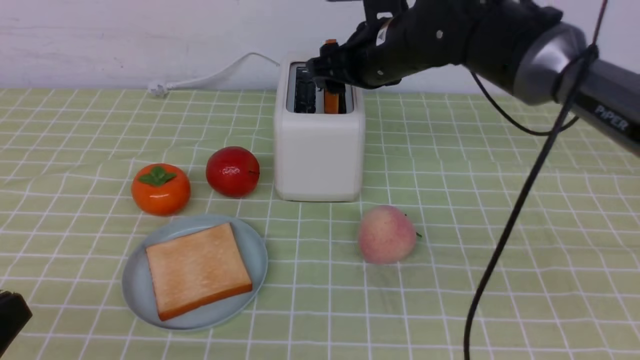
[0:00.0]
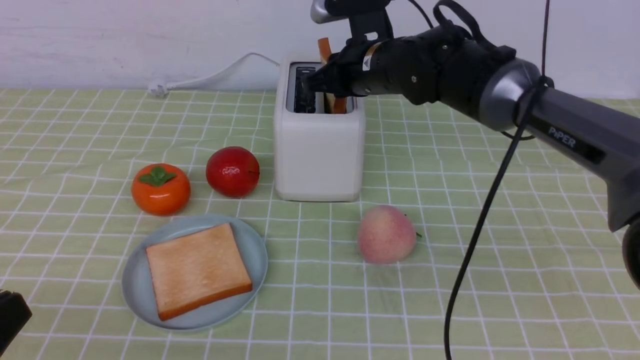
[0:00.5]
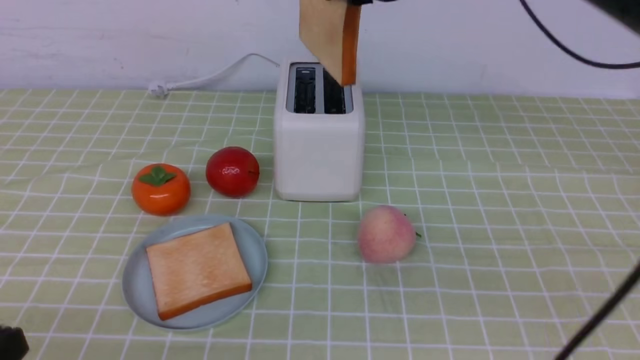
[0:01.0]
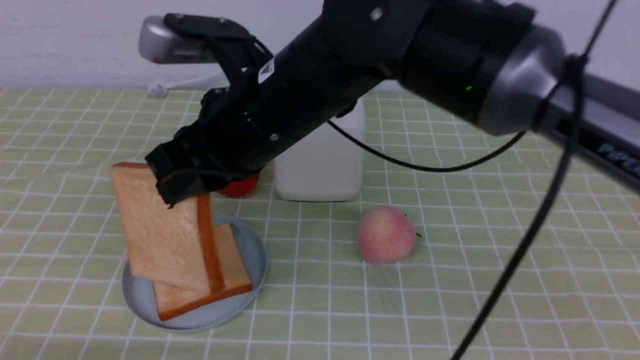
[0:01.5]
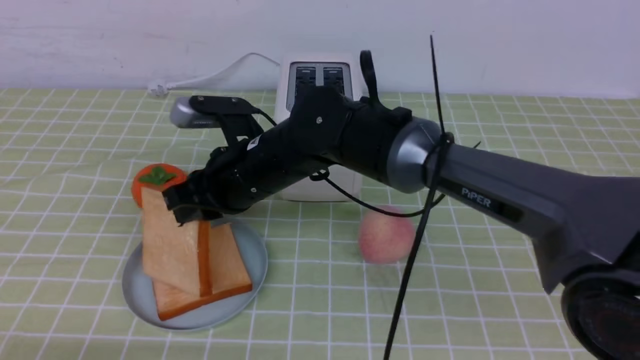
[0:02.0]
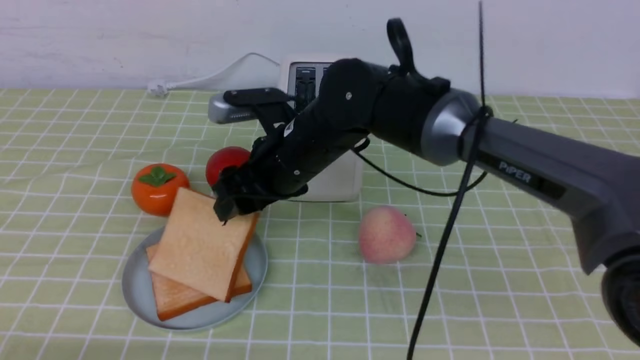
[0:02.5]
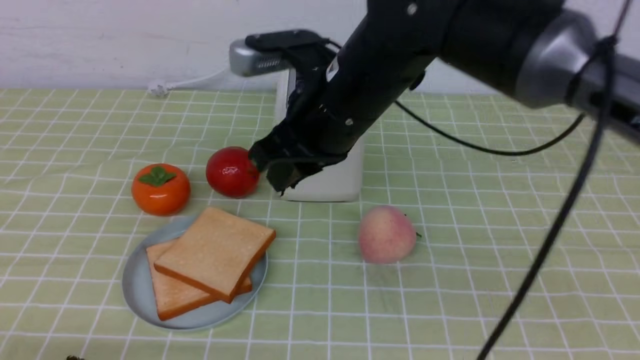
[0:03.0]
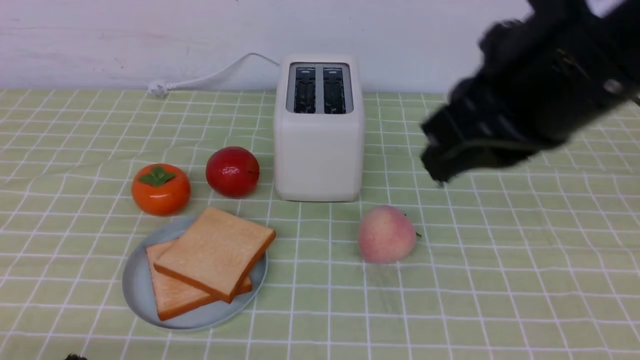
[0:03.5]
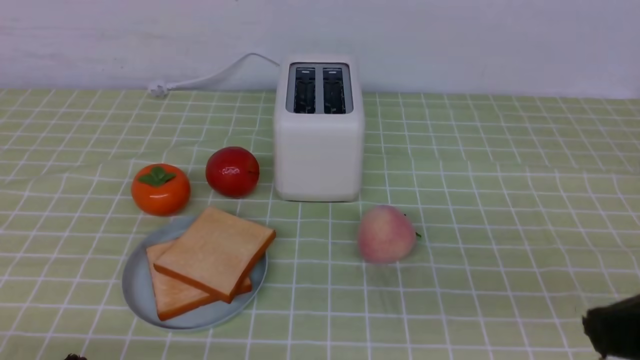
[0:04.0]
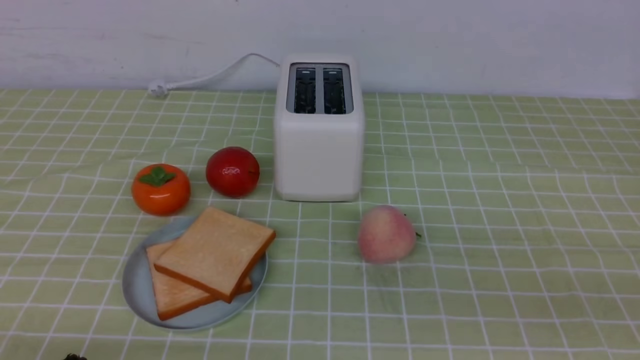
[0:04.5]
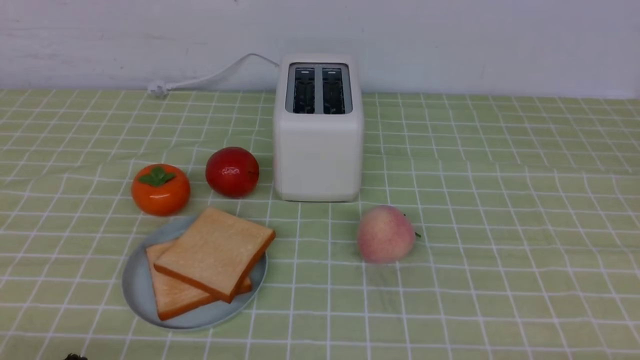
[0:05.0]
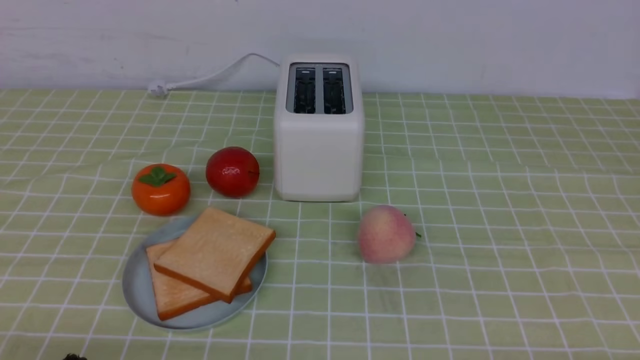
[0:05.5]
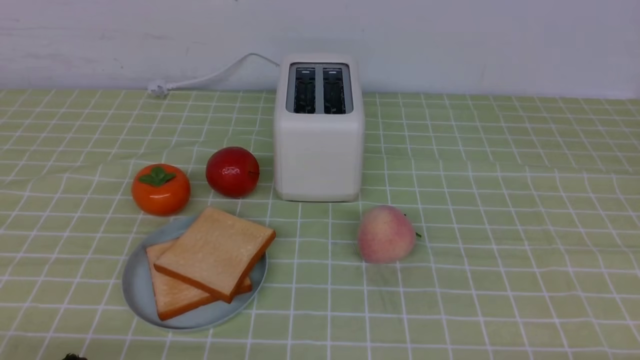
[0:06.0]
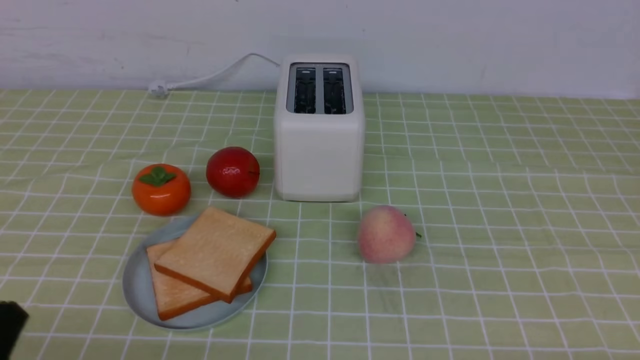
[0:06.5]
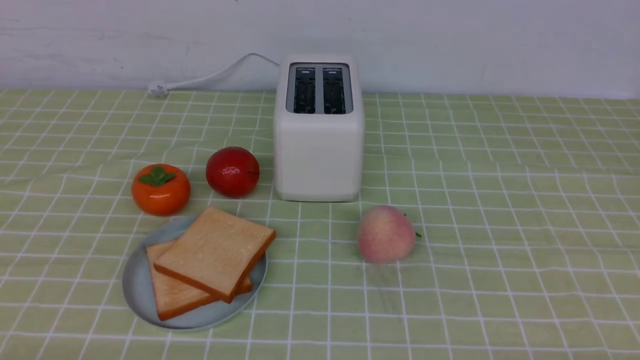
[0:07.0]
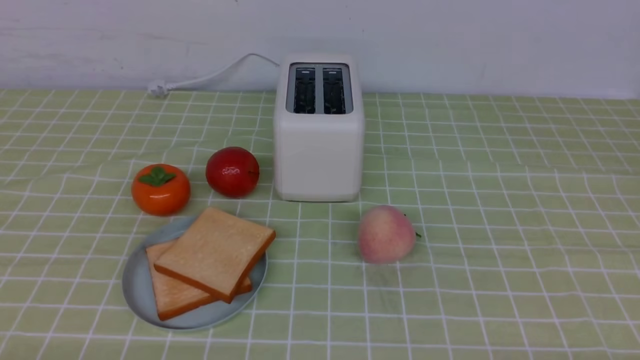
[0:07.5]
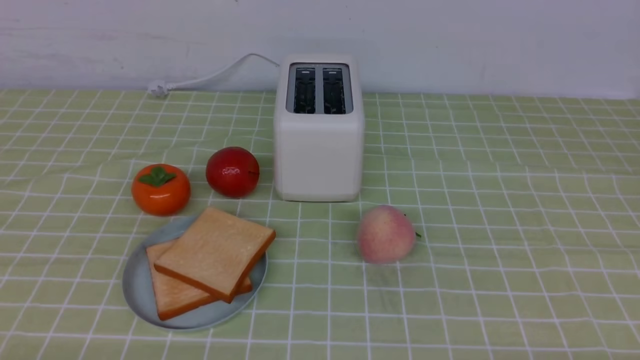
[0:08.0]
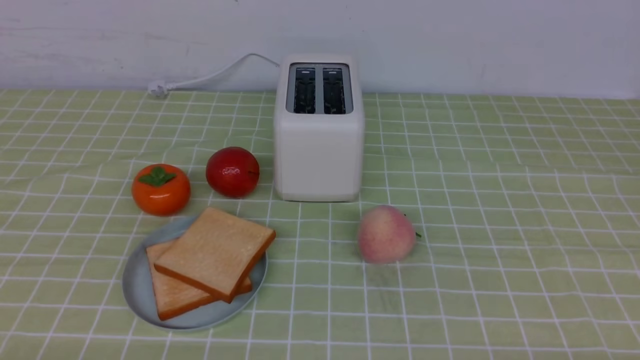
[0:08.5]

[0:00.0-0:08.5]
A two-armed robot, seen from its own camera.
Task of the whole recording: take toasted bread from bread machine on green coffee tablecloth place on plate.
Step, 0:01.0 to 0:03.0: use the right arm to put a slice of bread into the plate.
0:00.0 to 0:02.0: The right gripper is displaced to the left, backward and downward by approximately 20 cm, and closes. Meanwhile the left gripper shifts roughly 10 cm downward.
0:02.0 to 0:04.0: The right gripper moves to the right, backward and upward, about 40 cm, and opens, then closes once more.
0:04.0 to 0:06.5: The right gripper travels downward and to the right by roughly 25 cm.

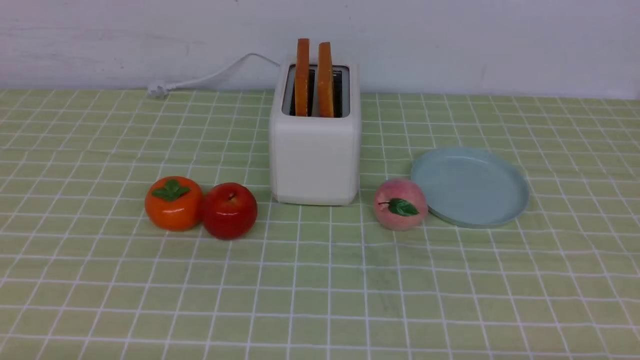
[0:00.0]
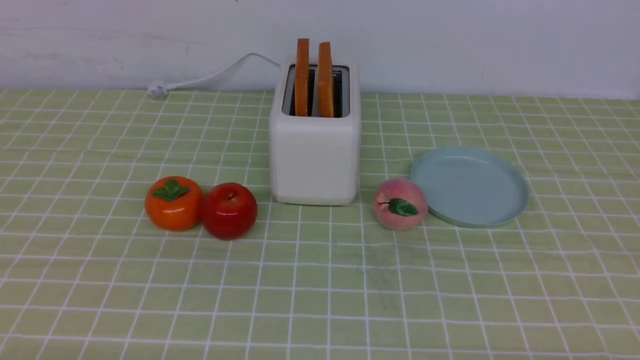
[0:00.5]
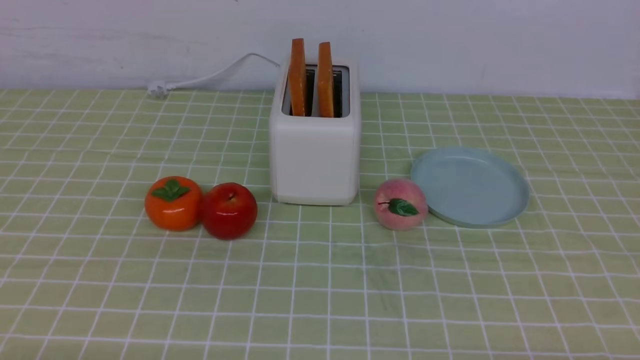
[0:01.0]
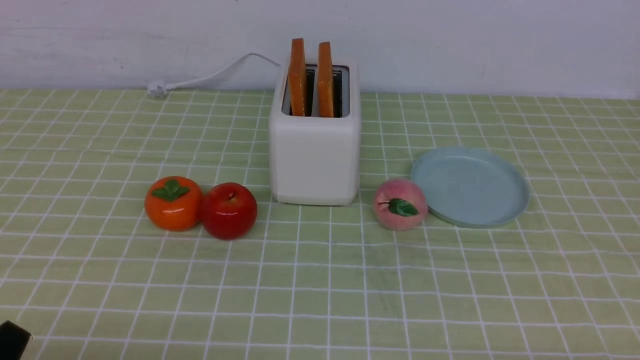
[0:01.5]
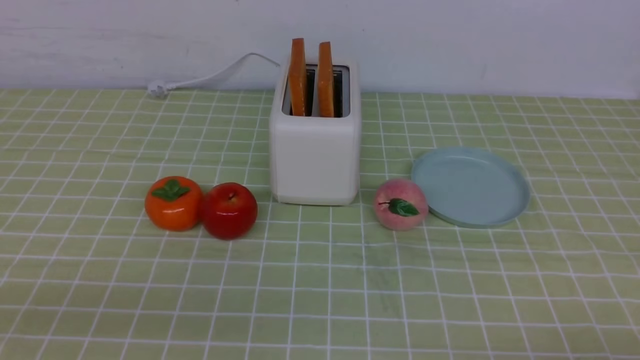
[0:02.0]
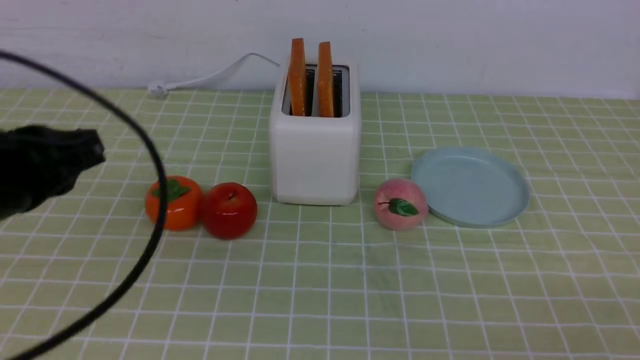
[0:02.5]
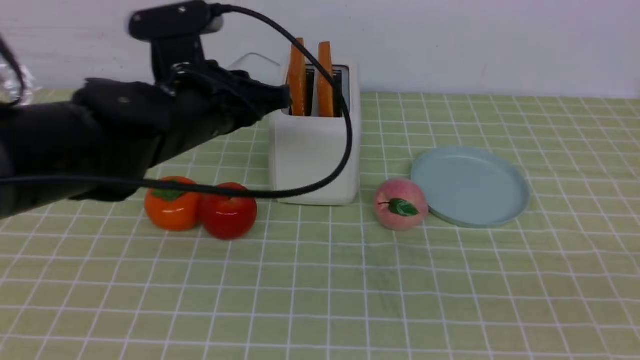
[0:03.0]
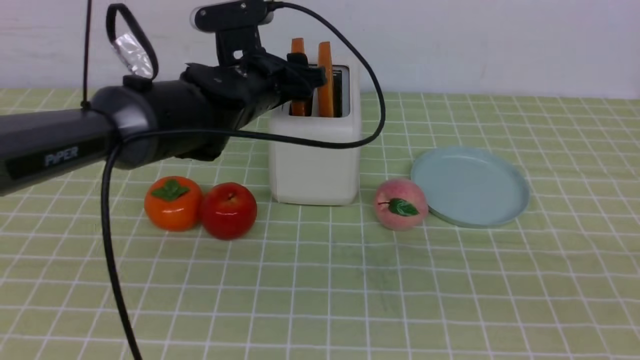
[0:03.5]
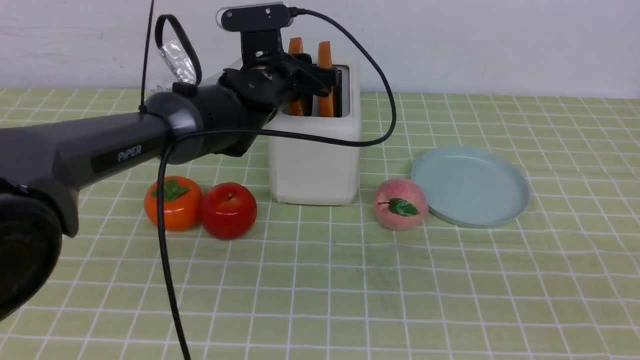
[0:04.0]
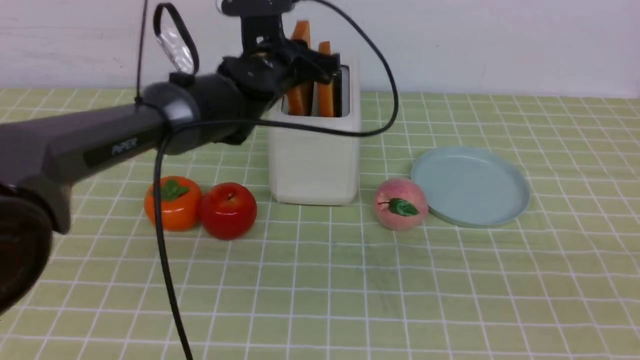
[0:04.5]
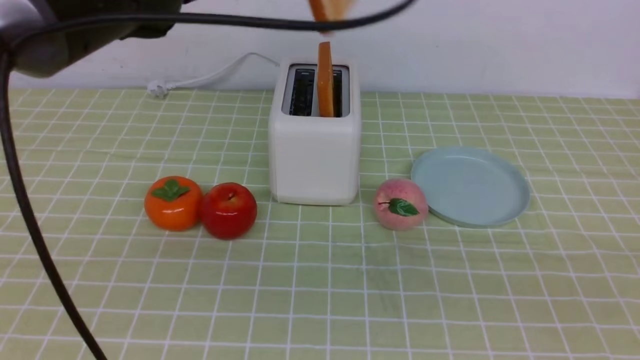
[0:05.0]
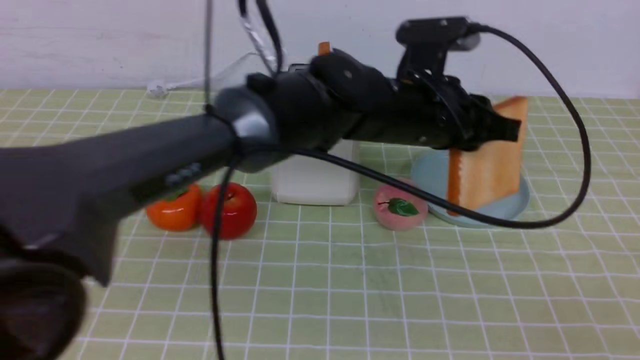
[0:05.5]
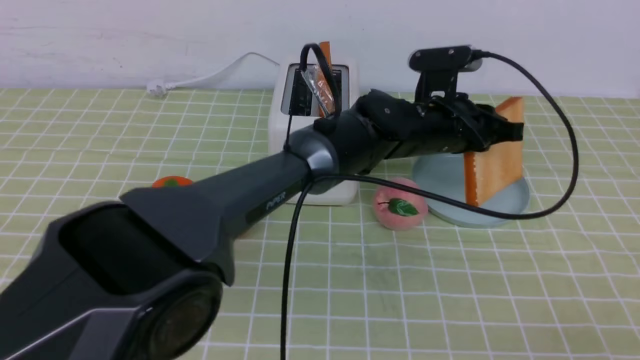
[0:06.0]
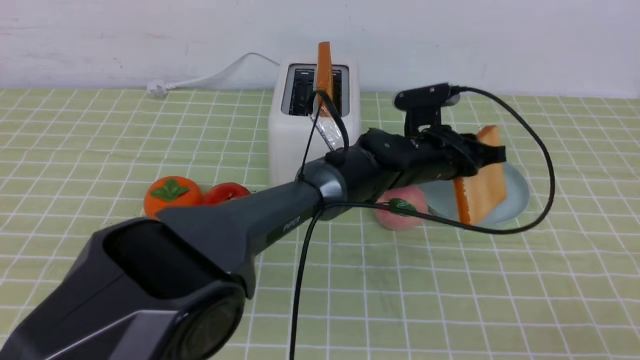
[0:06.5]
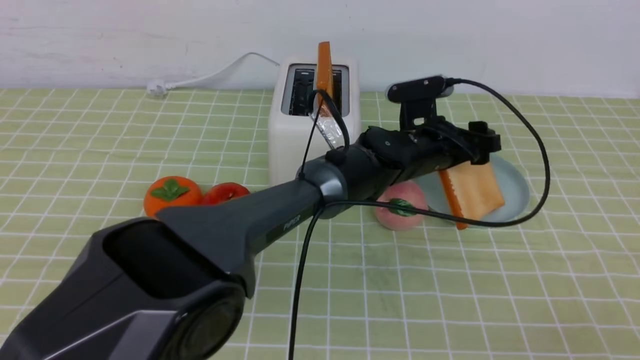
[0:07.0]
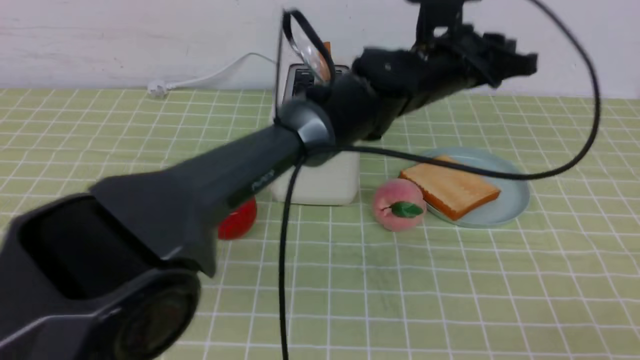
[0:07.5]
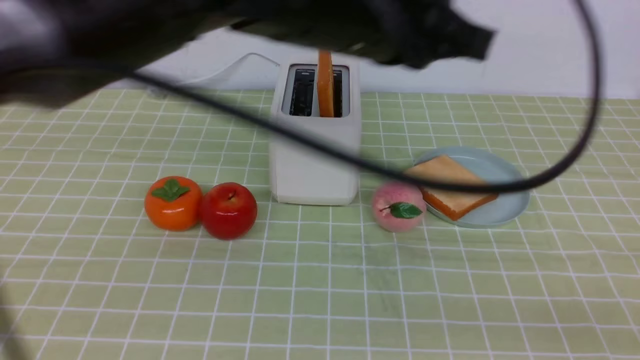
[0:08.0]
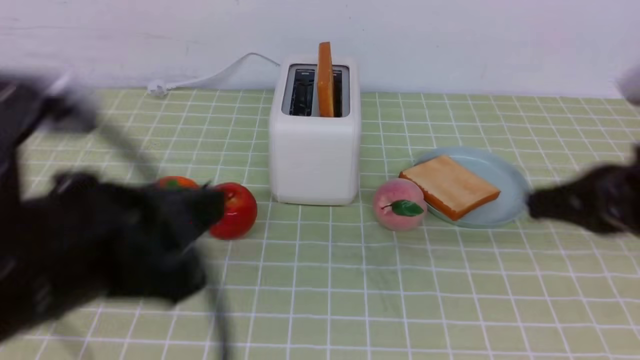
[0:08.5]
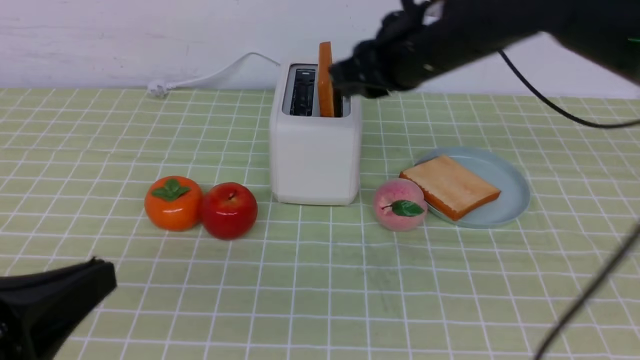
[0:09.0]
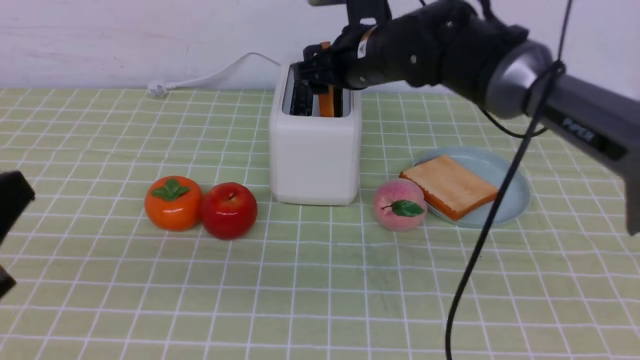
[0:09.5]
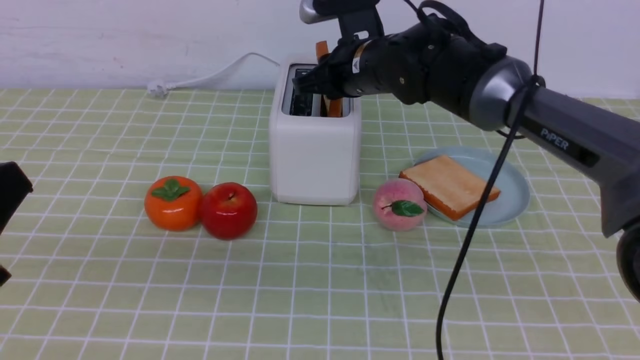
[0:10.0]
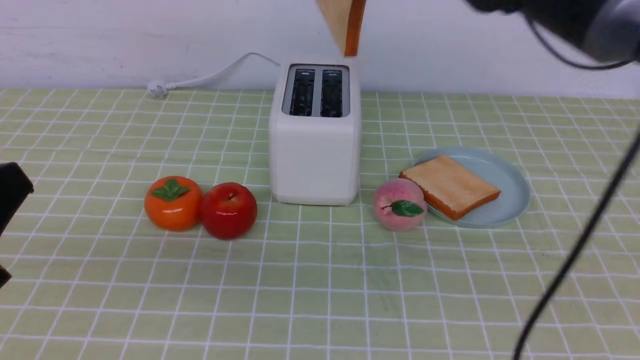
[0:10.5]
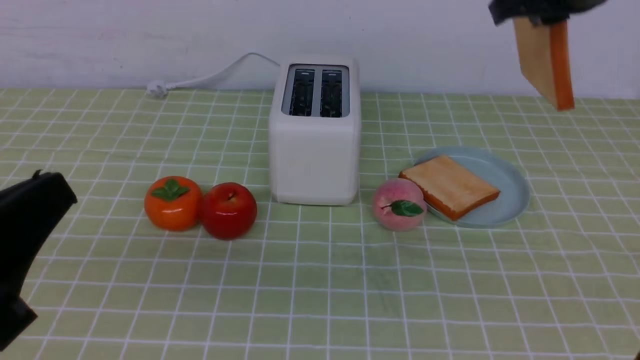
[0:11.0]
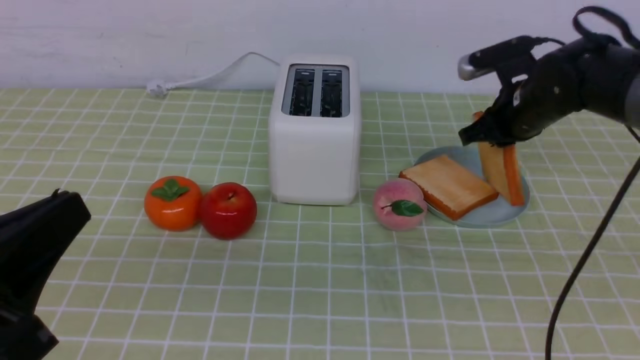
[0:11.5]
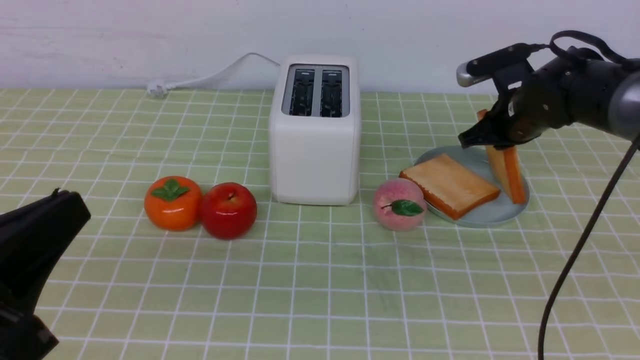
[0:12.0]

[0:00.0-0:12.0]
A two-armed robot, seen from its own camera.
Task of the whole recording: take toasted bread from bread machine on green coffee tablecloth place on plate.
Step, 0:00.0 to 0:04.5: use the left arm to take out a slice of bread.
Step, 0:05.0 to 0:07.0: use the left arm to put a slice of bread into the empty plate.
Step, 0:07.5 to 0:10.5: use the right arm to take out a slice of bread.
0:02.0 to 0:04.0: The left gripper travels forward and to the right by roughly 40 cm, and opens; the right gripper shifts about 15 cm upward, and closes.
0:04.0 to 0:06.0: The left gripper moves to the right, roughly 20 cm.
0:06.0 to 0:08.0: The left gripper moves upward, backward and to the left, approximately 25 cm, and opens, then closes again.
0:08.0 to 0:10.0: The right gripper heads forward and to the left, covering approximately 40 cm, and opens its fingers. Meanwhile the left gripper travels to the left, backward and downward by some 30 cm.
0:10.0 to 0:12.0: The right gripper goes approximately 20 cm to the right, and goes upward and returns, approximately 15 cm each way.
